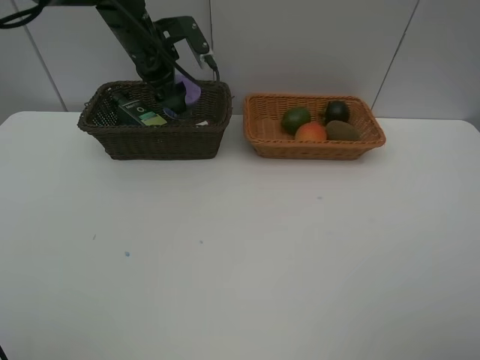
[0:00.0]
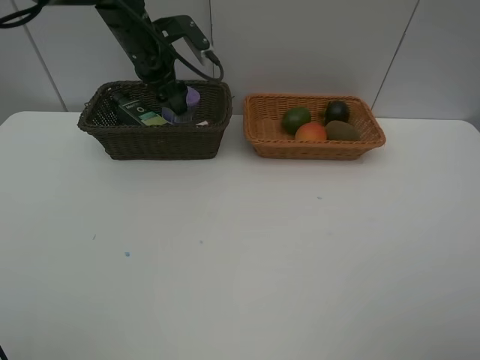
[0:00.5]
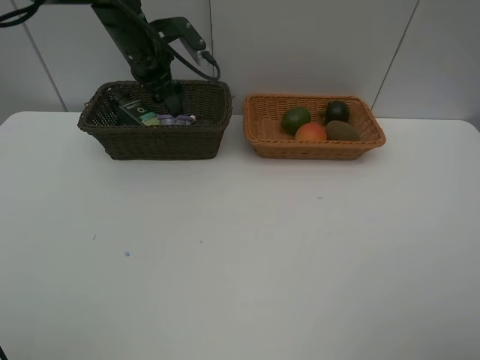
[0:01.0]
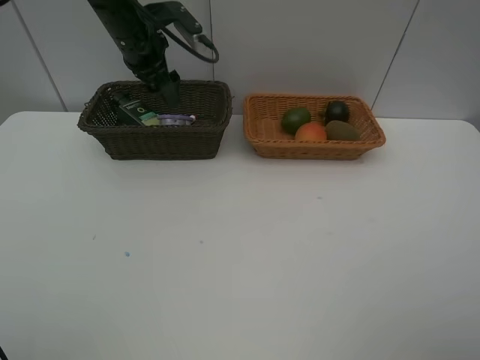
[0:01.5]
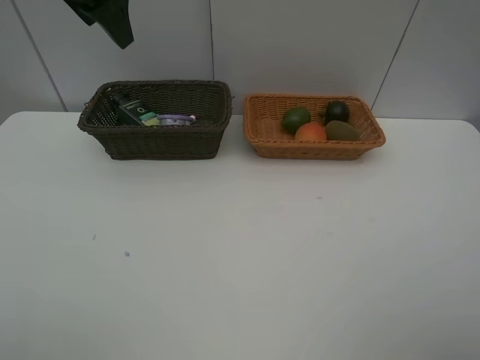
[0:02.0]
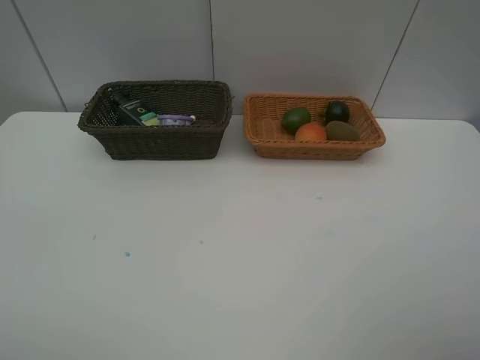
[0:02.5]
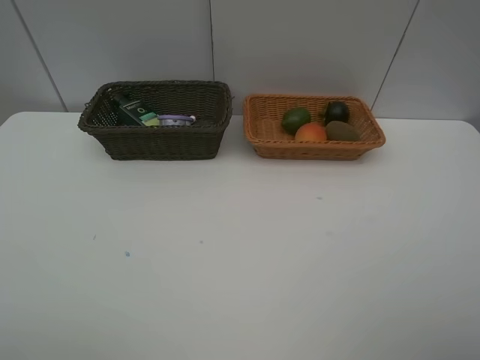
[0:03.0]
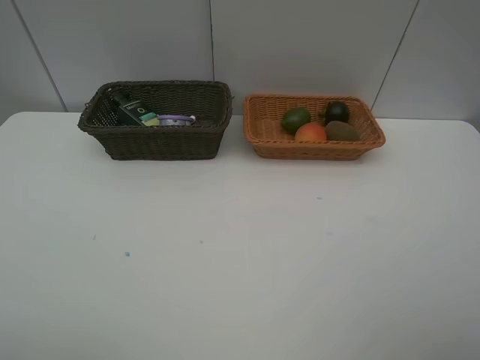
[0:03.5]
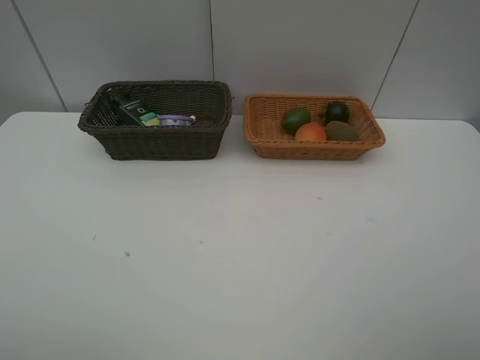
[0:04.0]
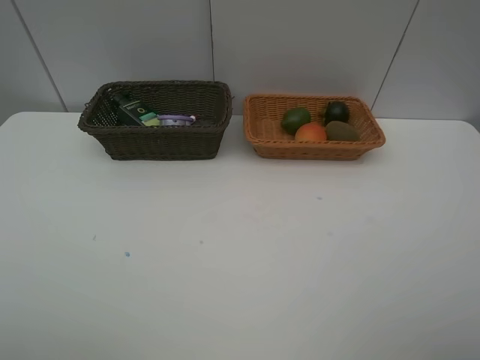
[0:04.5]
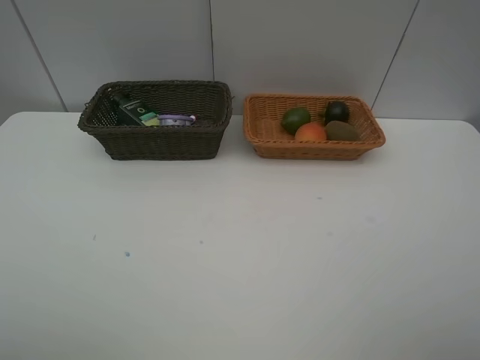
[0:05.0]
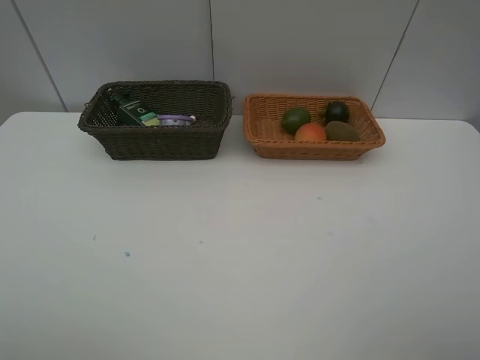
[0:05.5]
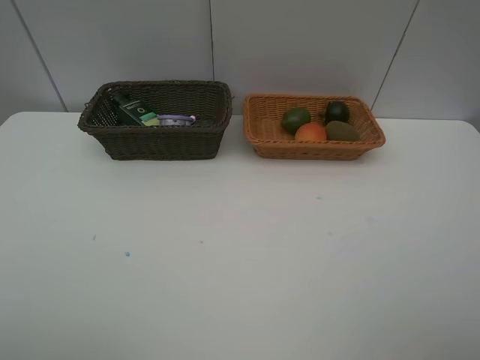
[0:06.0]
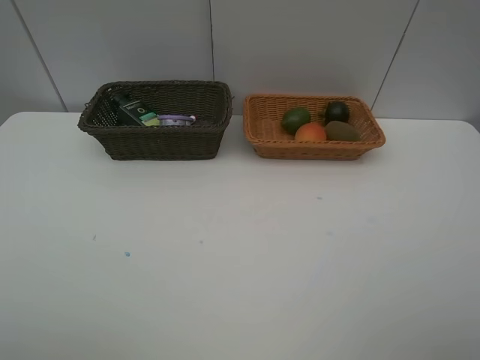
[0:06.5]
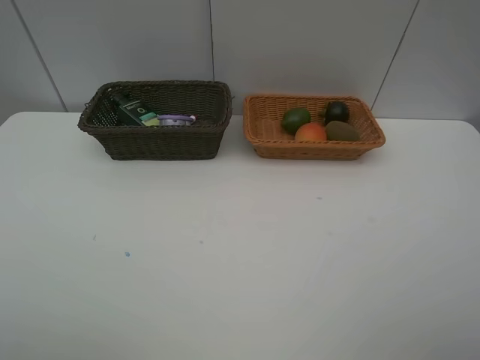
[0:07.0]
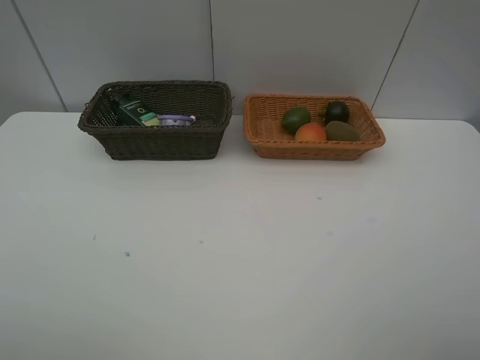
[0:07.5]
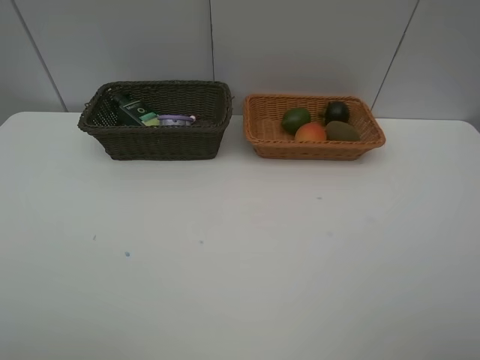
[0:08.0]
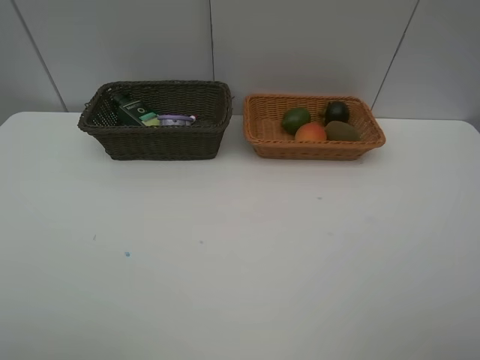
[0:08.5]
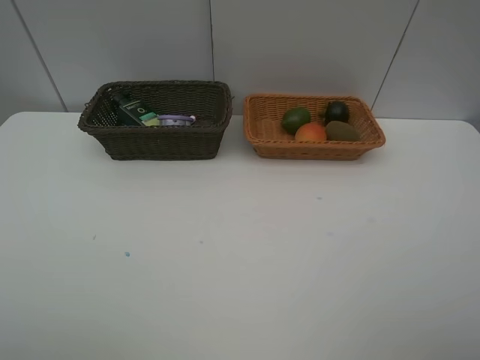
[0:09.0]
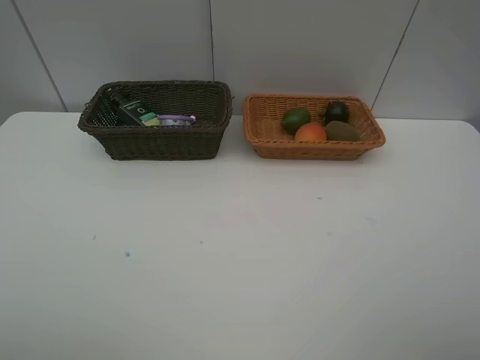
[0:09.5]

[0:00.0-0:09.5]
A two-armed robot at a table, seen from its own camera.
Task of the whole recording: Place multiple objects separately in different baskets.
0:00.0 to 0:02.0: The left gripper is displaced upward and backward by some 20 cm.
0:02.0 to 0:04.0: The left gripper heads backward, covering some 40 cm.
0:07.5 to 0:09.5: Both grippers stay about where they are.
